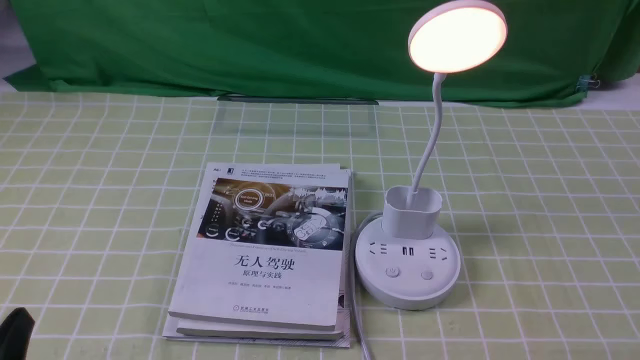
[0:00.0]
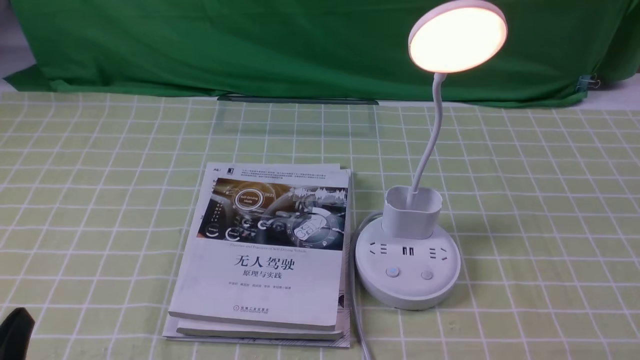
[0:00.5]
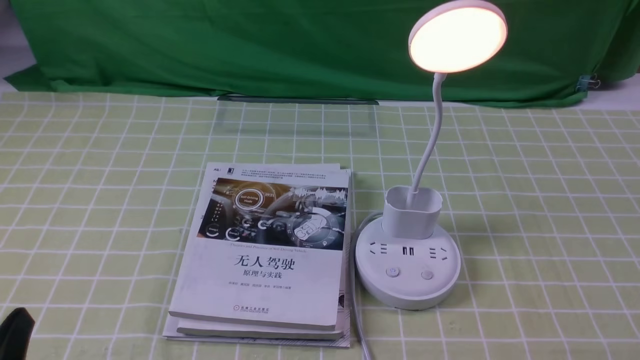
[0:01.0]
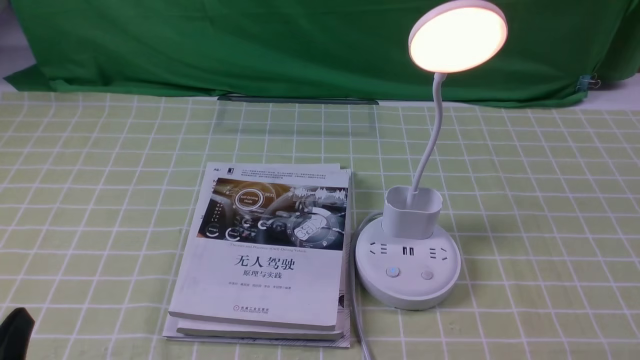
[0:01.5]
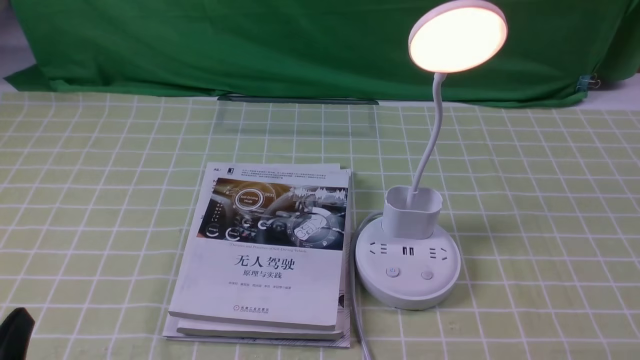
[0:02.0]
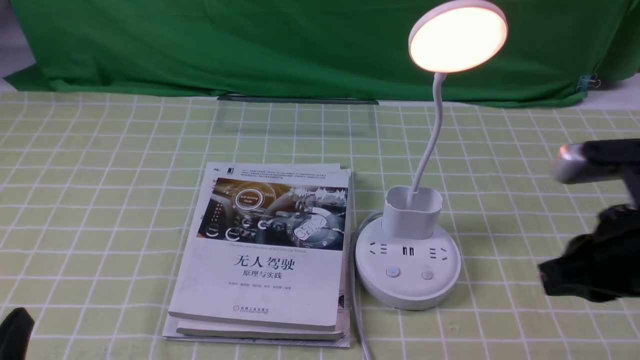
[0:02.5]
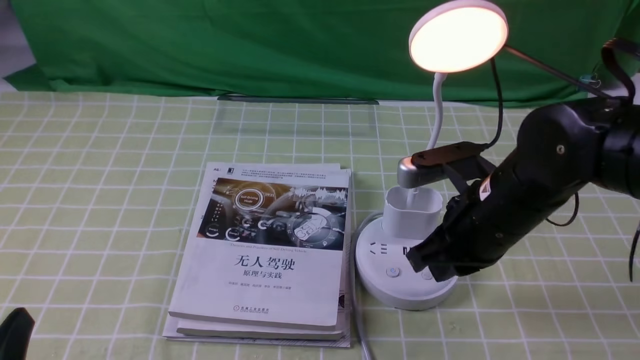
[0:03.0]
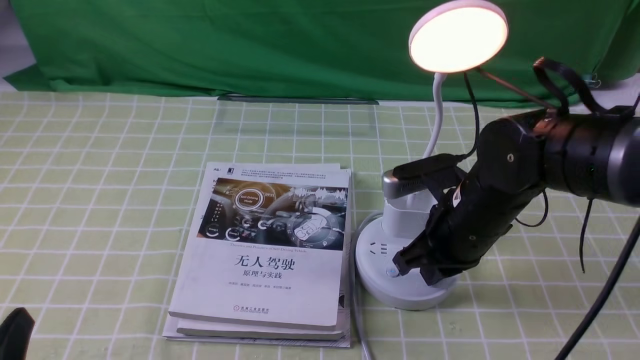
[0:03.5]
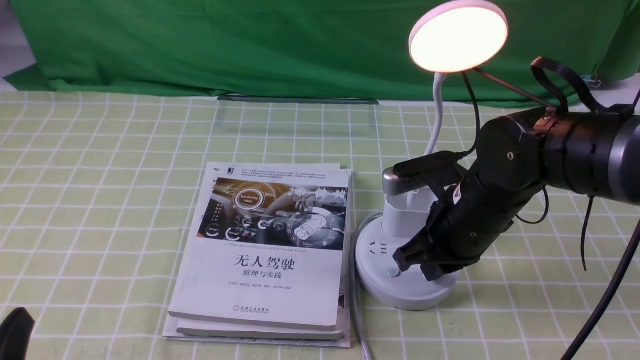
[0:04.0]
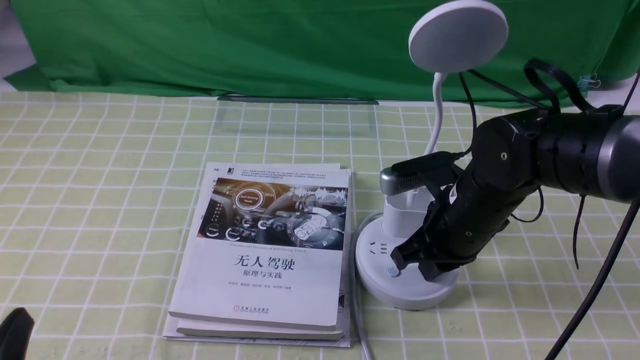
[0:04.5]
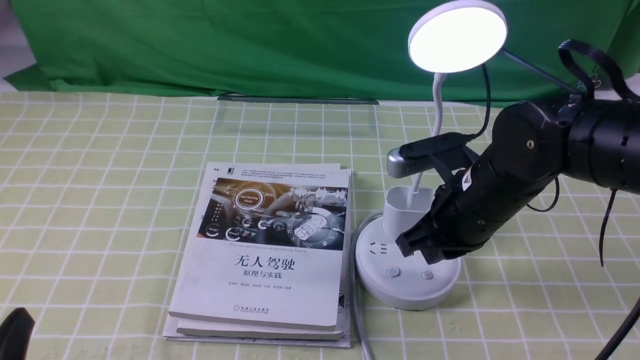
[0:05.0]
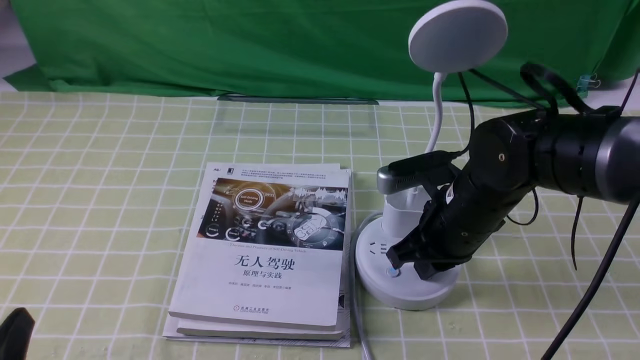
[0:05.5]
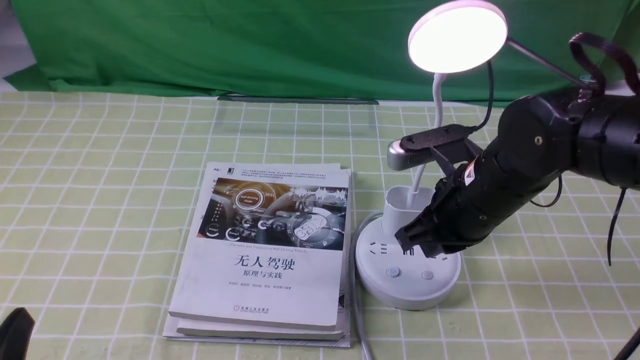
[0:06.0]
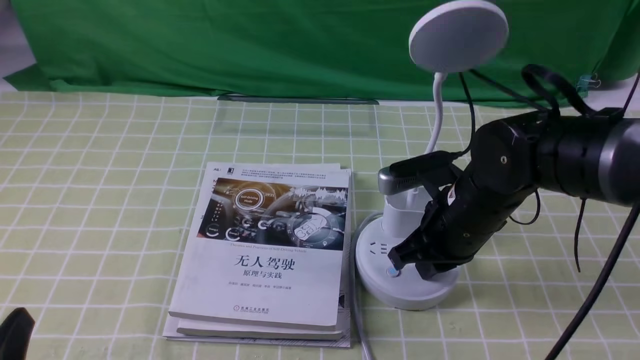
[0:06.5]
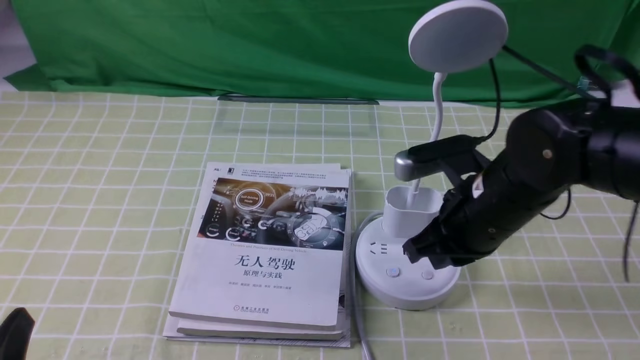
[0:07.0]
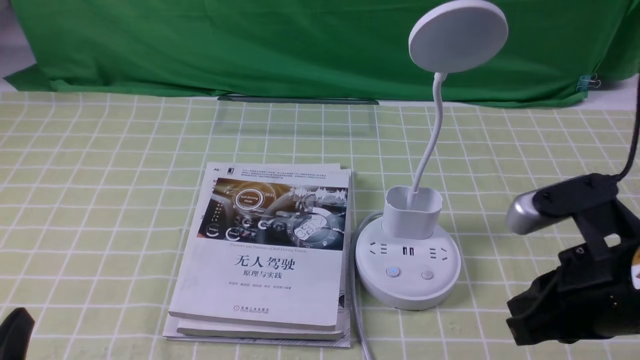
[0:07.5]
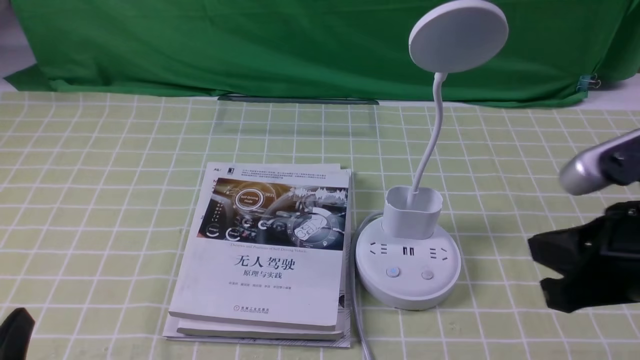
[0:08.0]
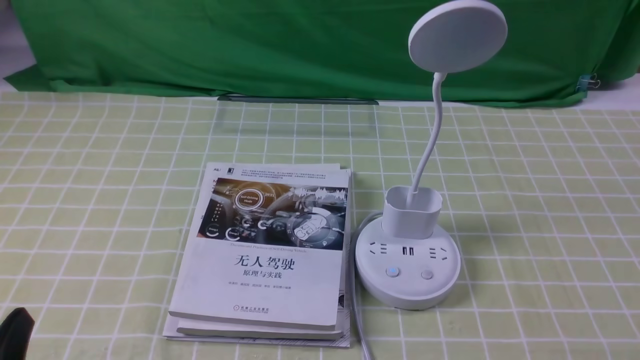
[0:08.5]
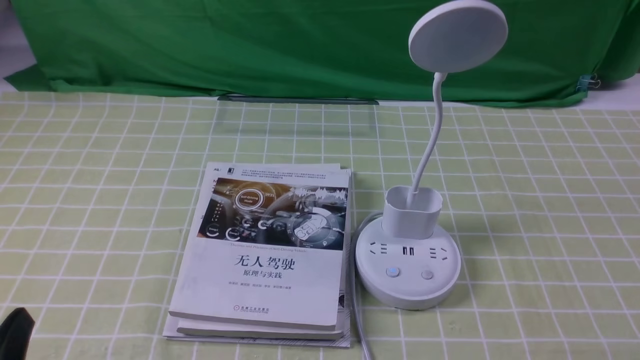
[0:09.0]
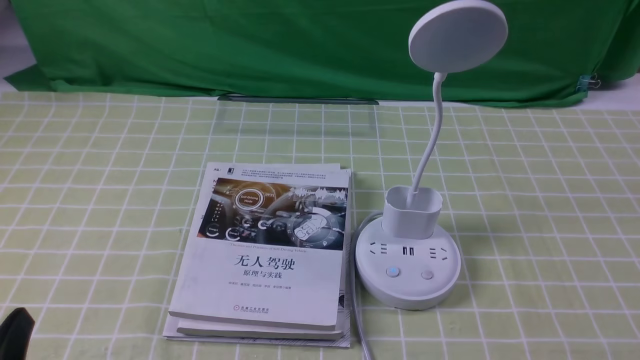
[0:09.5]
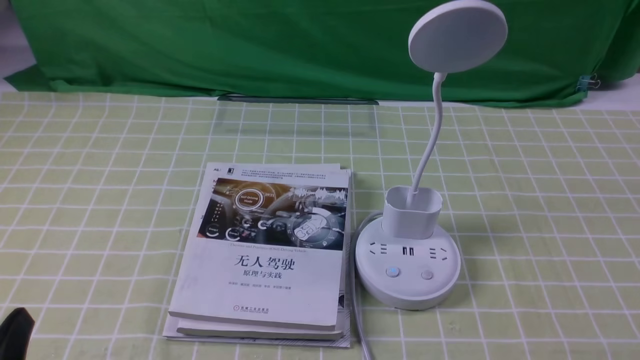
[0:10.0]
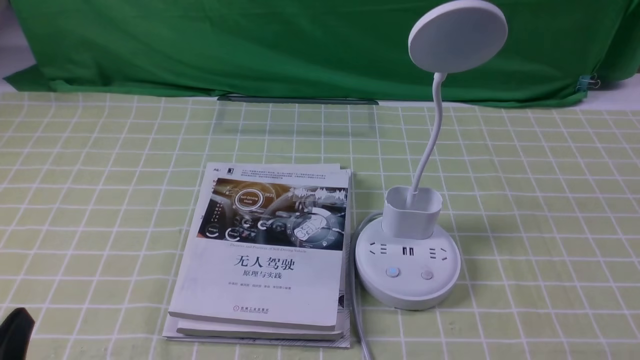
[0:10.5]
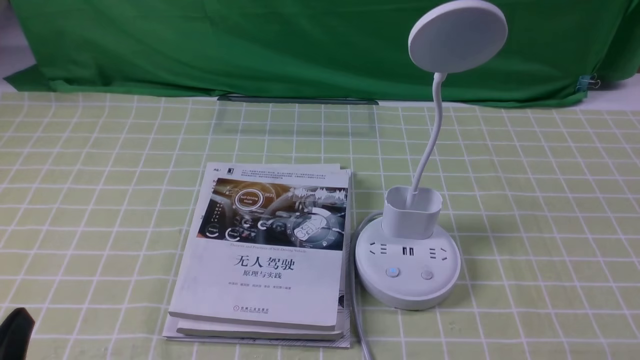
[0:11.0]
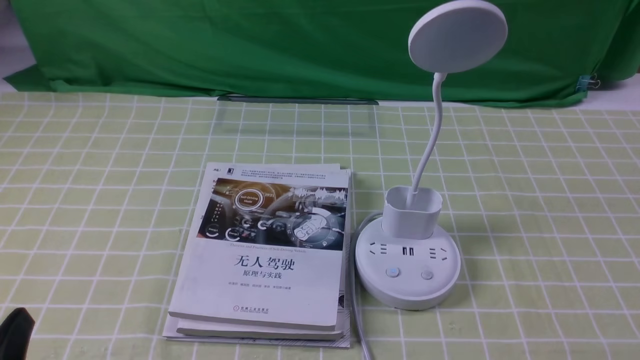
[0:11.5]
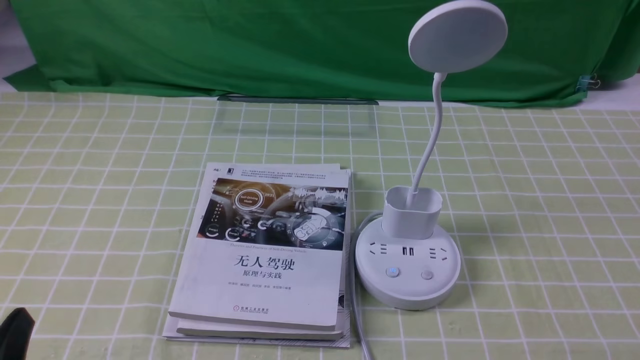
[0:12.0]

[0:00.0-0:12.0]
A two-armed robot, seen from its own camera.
Task of the whole recording: turn off the desk lamp on the green coffee tablecloth by hand.
Step, 0:00.0 to 0:07.0: use the right arm to press the button switch on the lamp holder.
0:02.0 to 0:04.0: The right gripper is displaced forward, to the left and downward by about 30 cm.
0:04.0 to 0:06.0: The grippers make only small movements.
0:06.0 to 0:08.0: The right gripper shifts approximately 20 cm backward, to the right and upward.
0:08.0 to 0:10.0: The right gripper heads downward, backward and to the right, covering some 15 cm.
